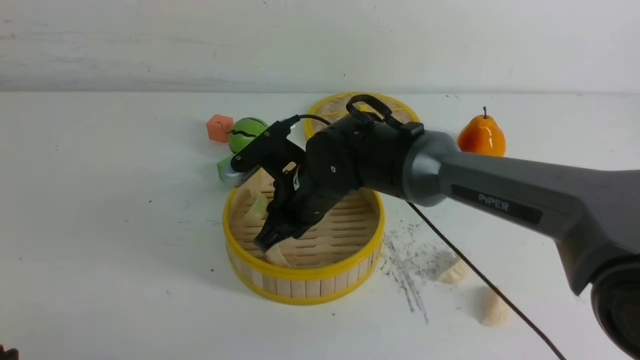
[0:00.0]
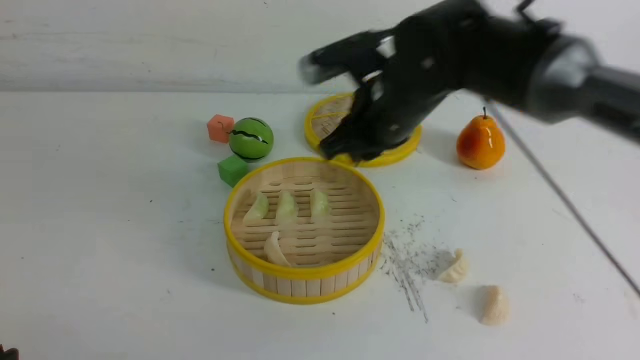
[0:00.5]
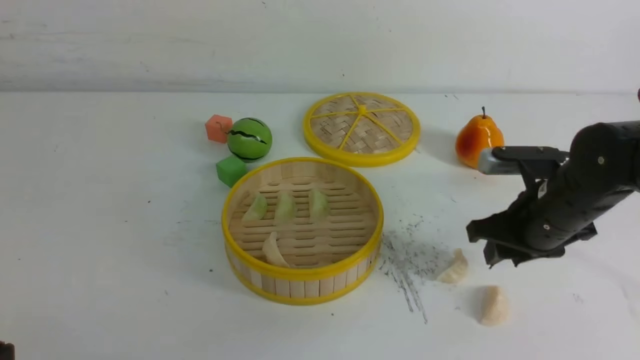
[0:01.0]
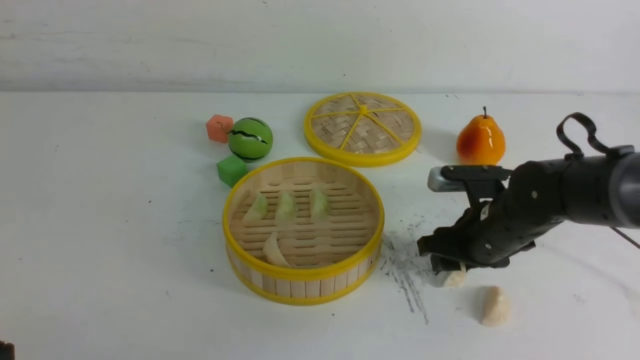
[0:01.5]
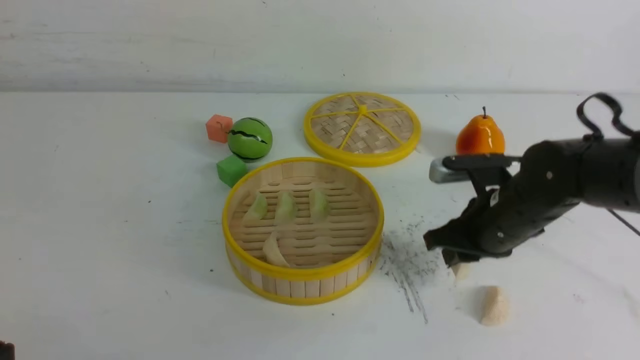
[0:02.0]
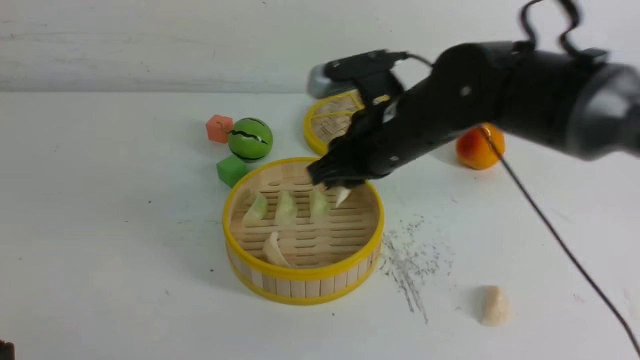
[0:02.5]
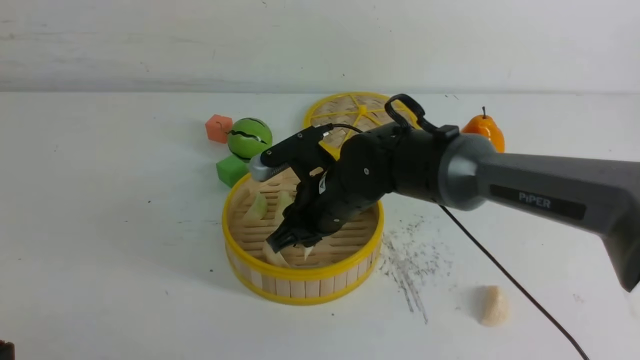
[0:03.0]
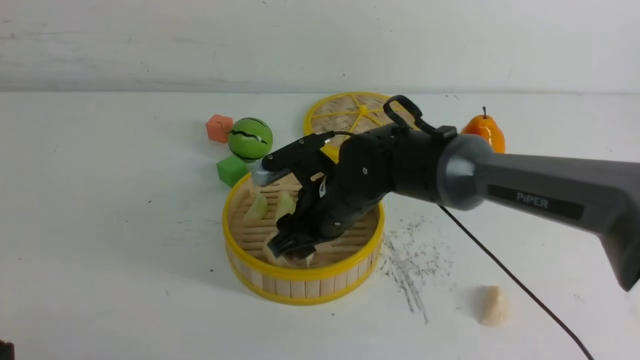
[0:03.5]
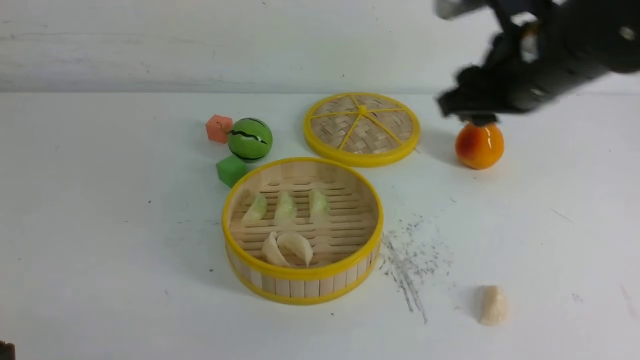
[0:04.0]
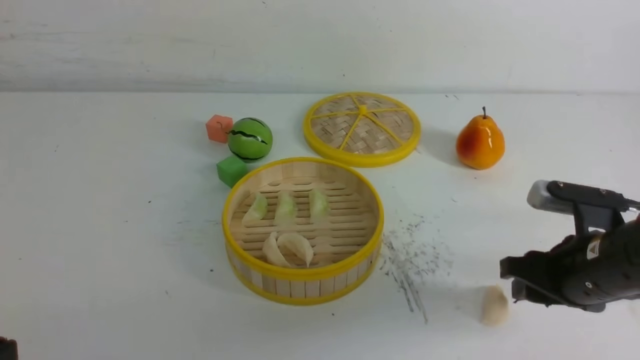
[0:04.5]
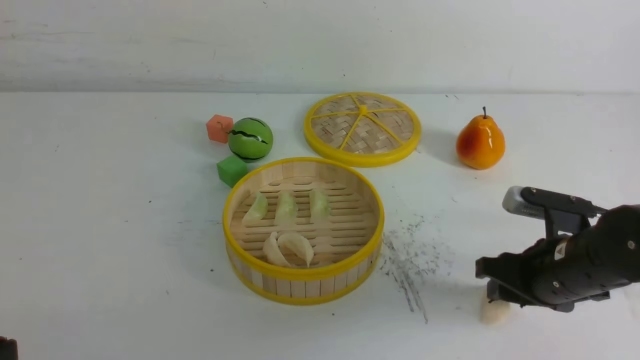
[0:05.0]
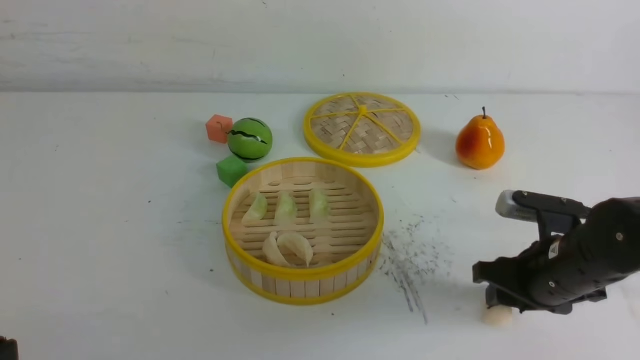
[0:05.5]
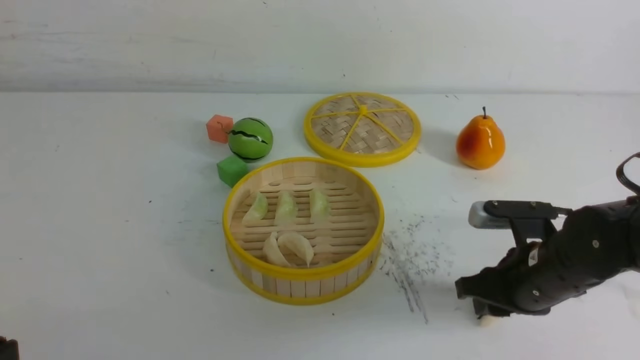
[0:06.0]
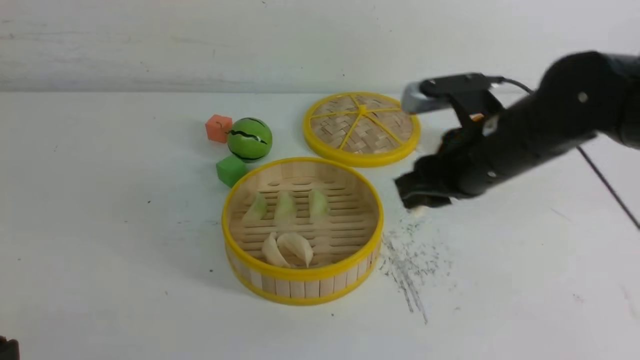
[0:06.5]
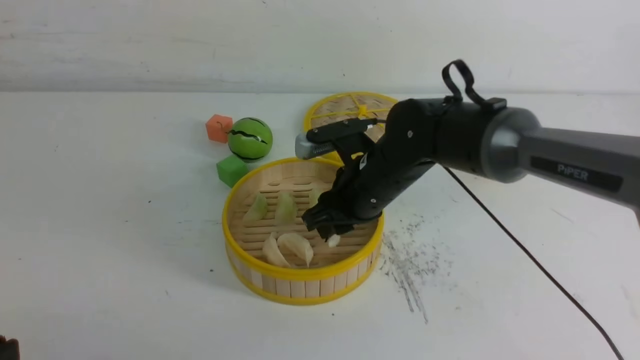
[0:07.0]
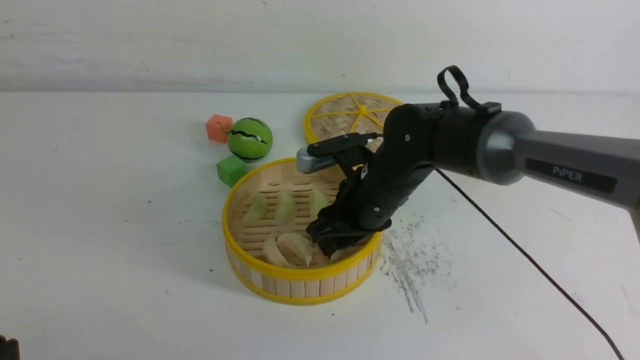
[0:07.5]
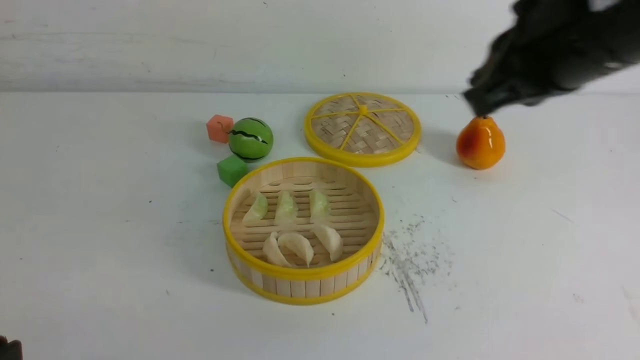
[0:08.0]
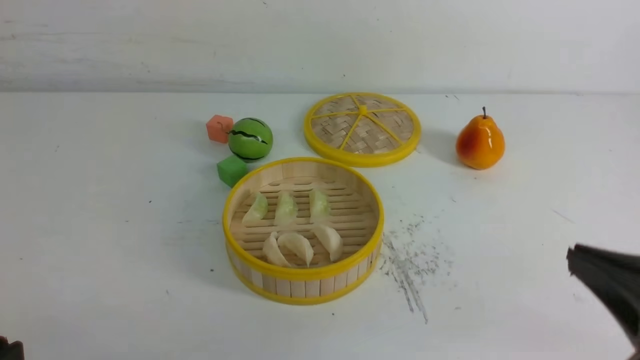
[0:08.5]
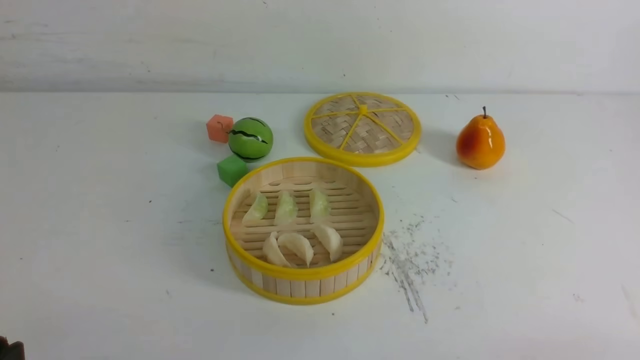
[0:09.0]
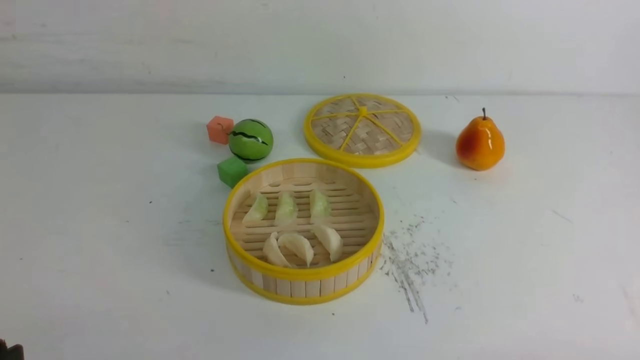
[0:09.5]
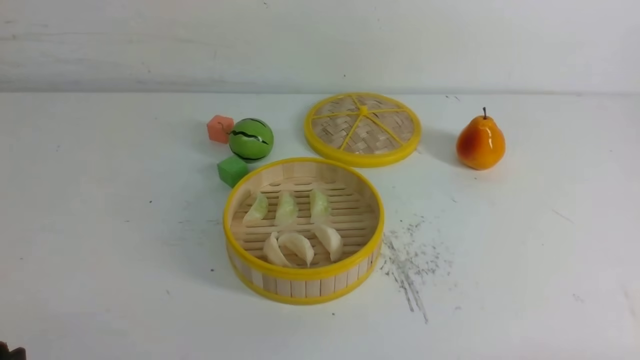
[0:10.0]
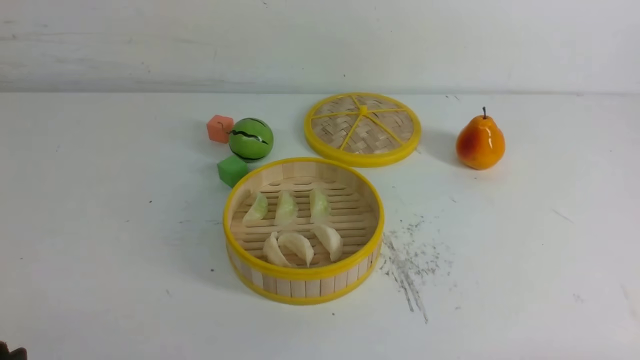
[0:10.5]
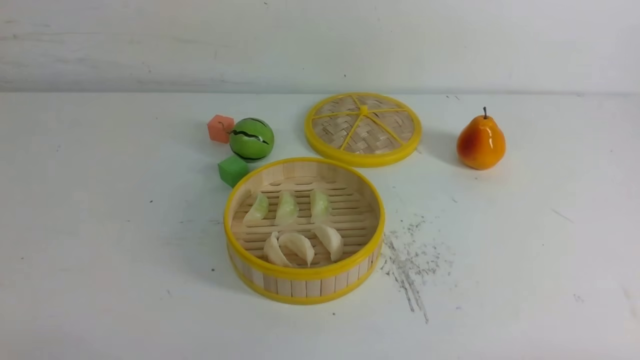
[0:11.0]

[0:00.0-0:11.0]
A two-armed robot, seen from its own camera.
Task of the whole recording: put the dumplings into the steamer on the white table.
Step, 0:02.0 to 0:03.5: use the right arm to put the dumpling into the steamer.
Step, 0:04.0 to 0:06.0: use the right arm to grab a dumpling.
Step, 0:06.5 to 0:07.5: use the right arm to put the dumpling into the steamer.
0:00.0 to 0:02.0: The right gripper shifts some 20 cm to the right.
0:02.0 to 0:03.5: The right gripper goes approximately 15 cm to the left, and opens its fingers.
0:03.5 to 0:05.5: The right gripper is displaced to the right by roughly 20 cm.
0:05.5 to 0:07.5: The right gripper heads to the left and forward, covering some 20 cm.
0:07.5 to 0:09.0: The right gripper is displaced backward and to the right by some 35 cm, and closes.

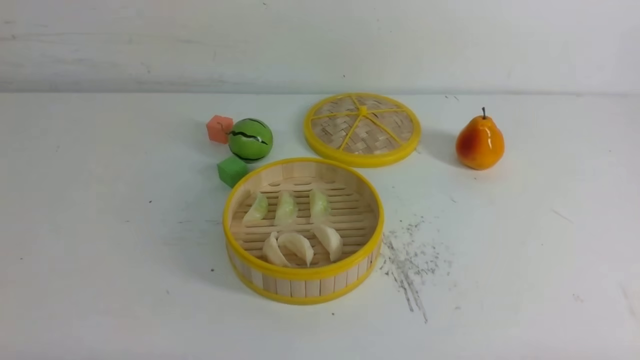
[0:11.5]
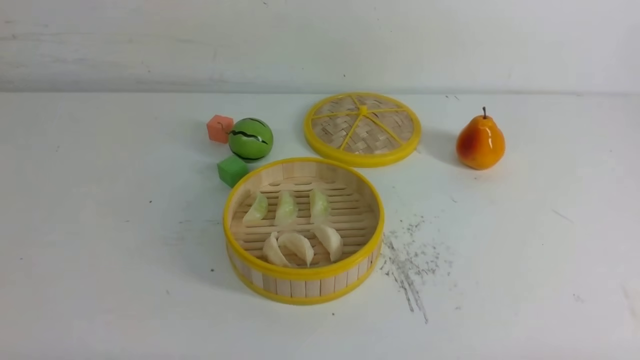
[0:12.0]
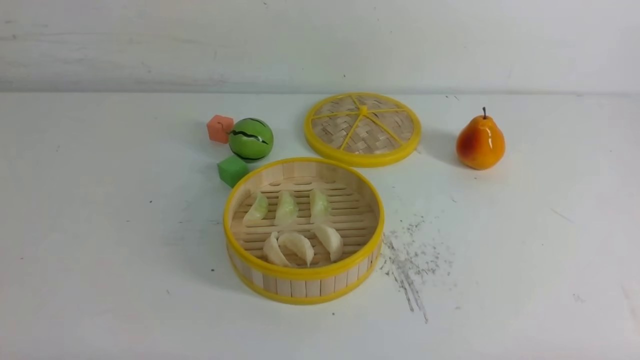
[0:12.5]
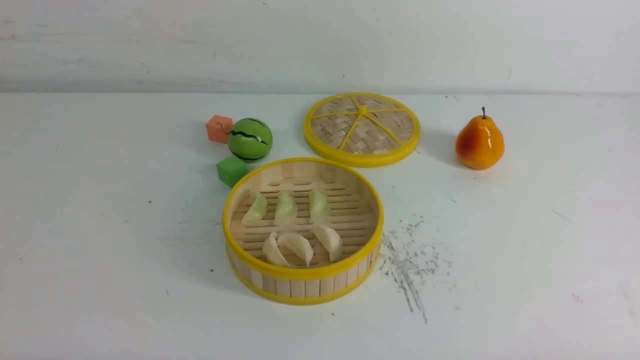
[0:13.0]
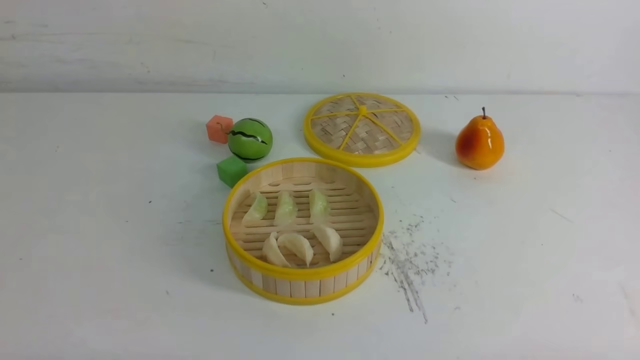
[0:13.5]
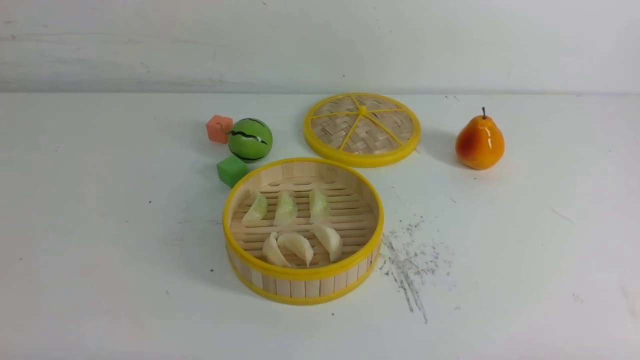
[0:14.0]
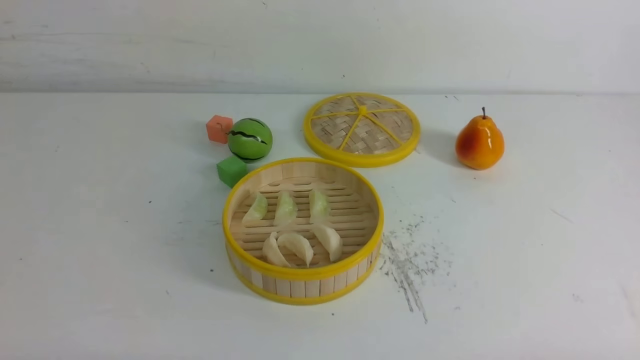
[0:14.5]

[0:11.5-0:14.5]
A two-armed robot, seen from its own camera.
Task of the whole recording: put the dumplings into the steamer on the white table.
0:11.5 to 0:14.5: The two grippers keep their place.

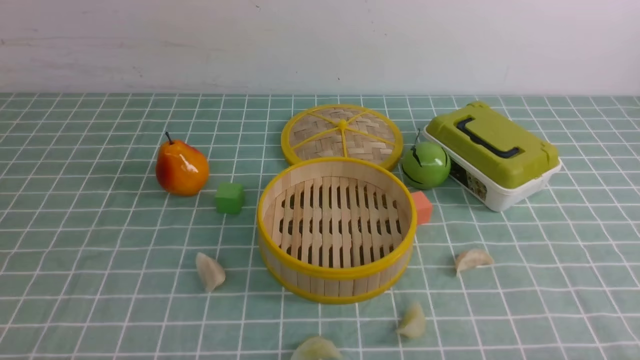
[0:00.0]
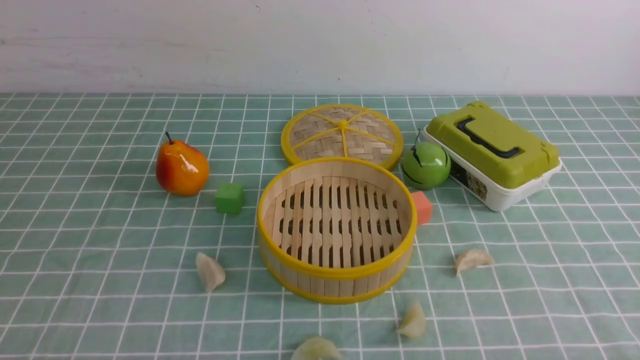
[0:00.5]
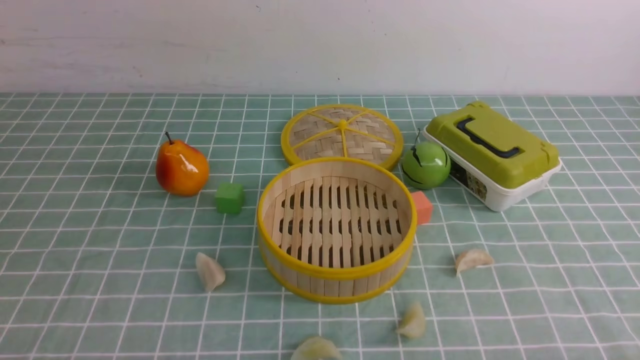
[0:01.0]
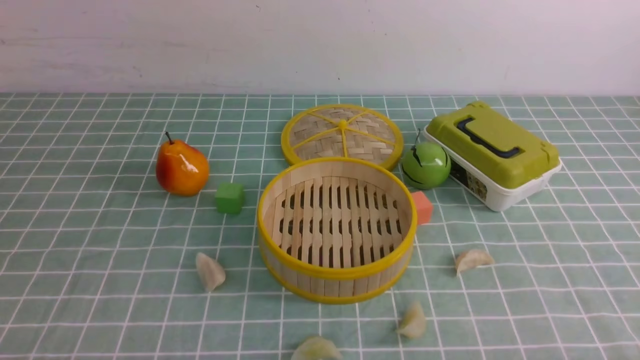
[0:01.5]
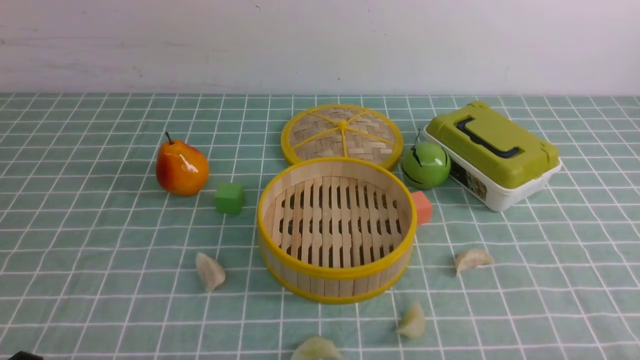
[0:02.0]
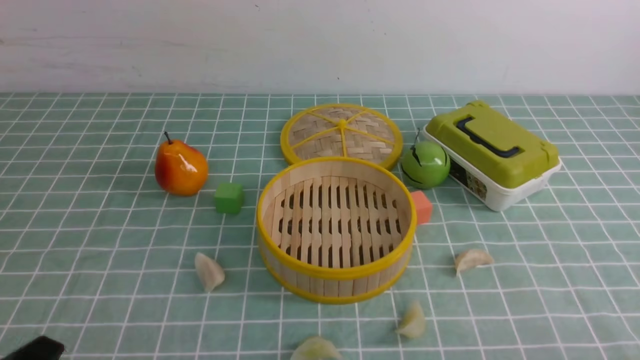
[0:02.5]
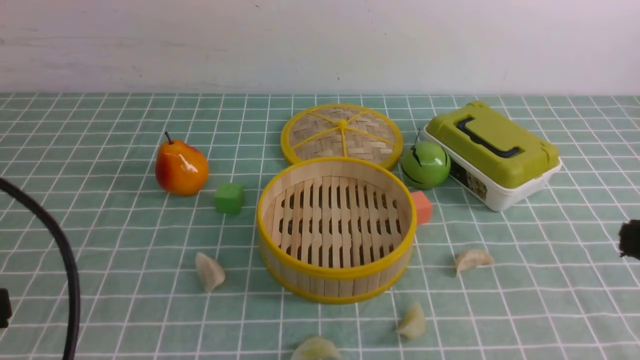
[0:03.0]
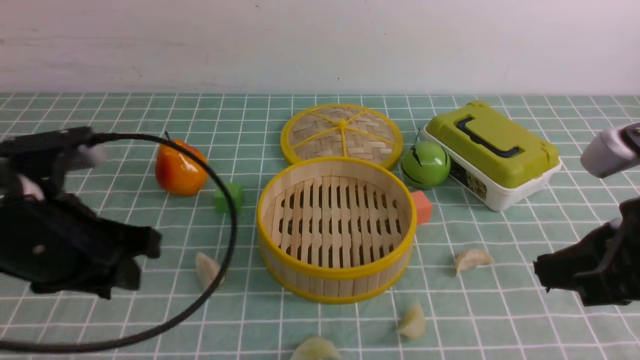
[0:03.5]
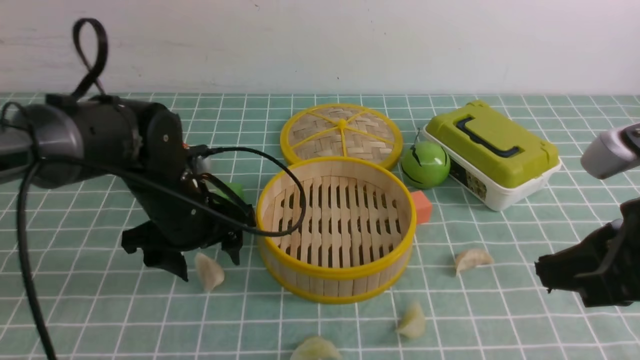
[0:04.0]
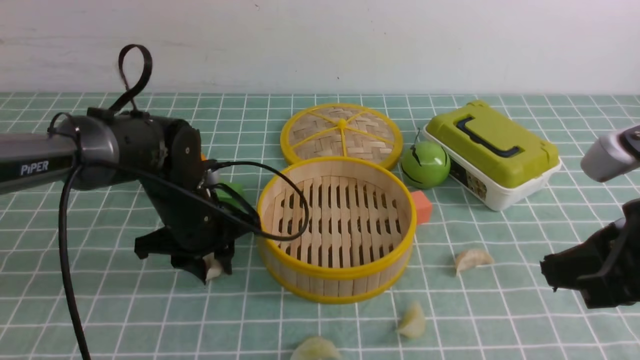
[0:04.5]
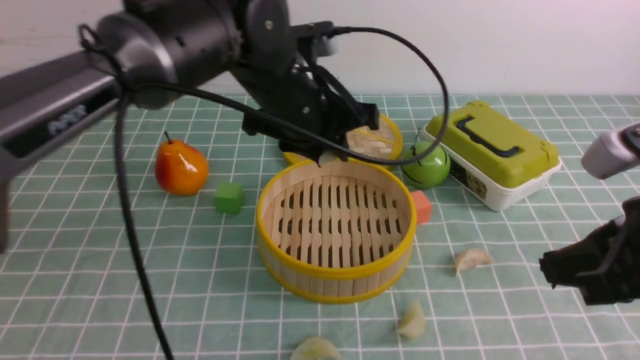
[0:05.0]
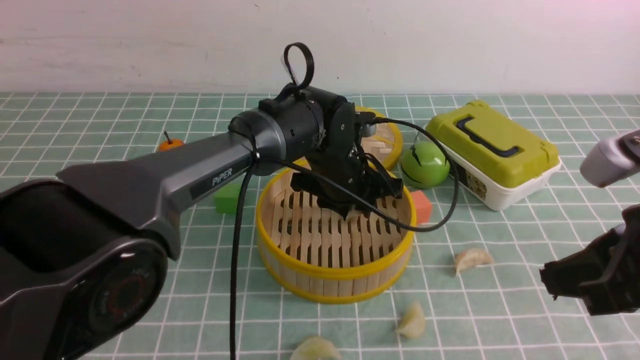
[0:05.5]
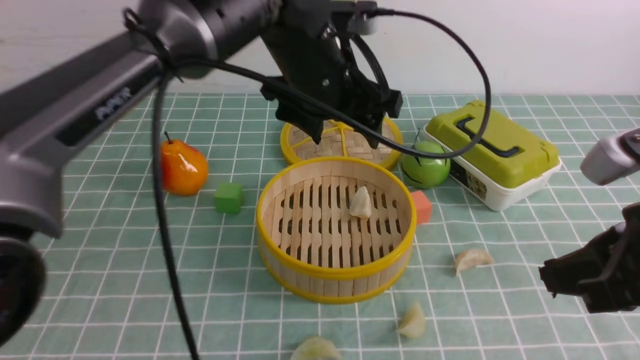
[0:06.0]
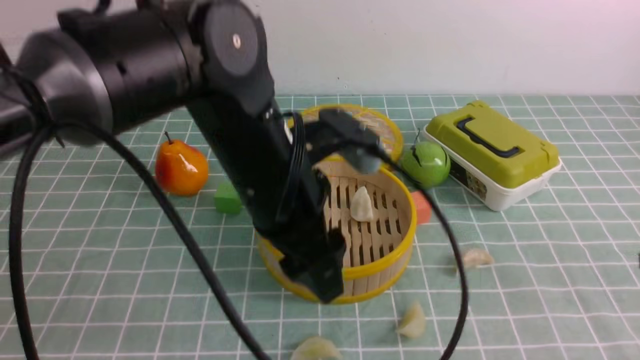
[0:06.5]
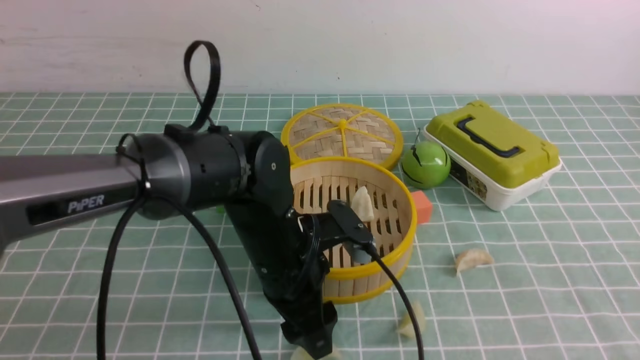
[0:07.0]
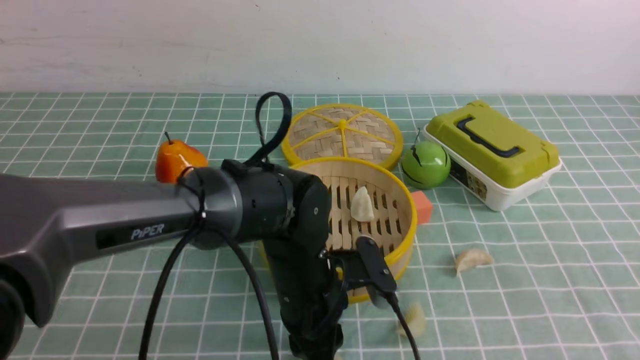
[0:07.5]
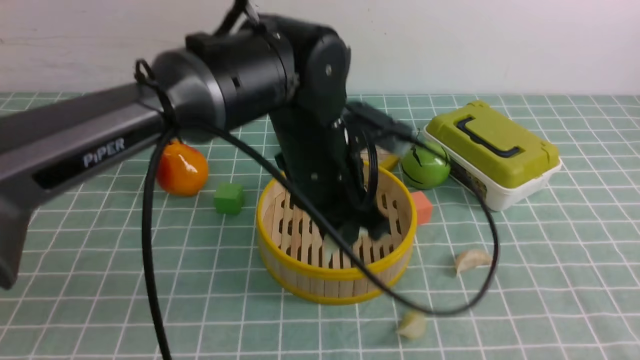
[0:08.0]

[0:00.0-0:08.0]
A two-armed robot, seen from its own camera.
Task of the whole recording: put the dumplings into the steamer on the table with the blue tablecloth.
Step, 0:00.0 to 0:04.0: use the left arm to grab a dumpling.
Step, 0:04.5 to 0:05.5: use the left arm to put the dumpling into the steamer.
Step, 0:06.0 to 0:07.5: use the left arm to grab a dumpling.
0:02.0 to 0:04.0: The left gripper heads forward, covering some 30 cm, and opens its fingers, while the right gripper moves upward, forward and to the left, some 20 cm, and closes.
0:04.0 to 0:06.0: The left gripper heads upward and to the right, covering roughly 20 cm, and closes and opens again.
0:06.0 to 0:08.0: The right gripper shifts some 5 cm backward; the left gripper shifts about 5 cm downward, and closes.
